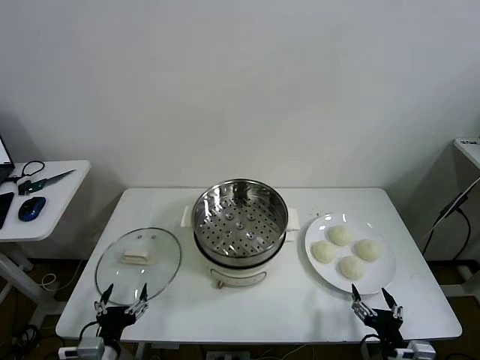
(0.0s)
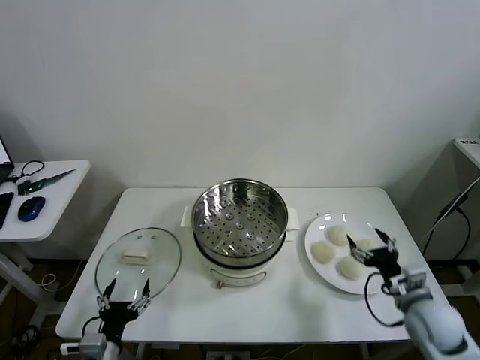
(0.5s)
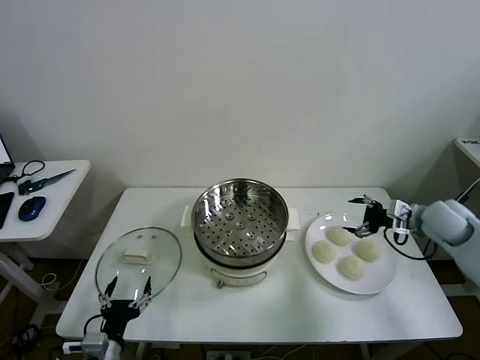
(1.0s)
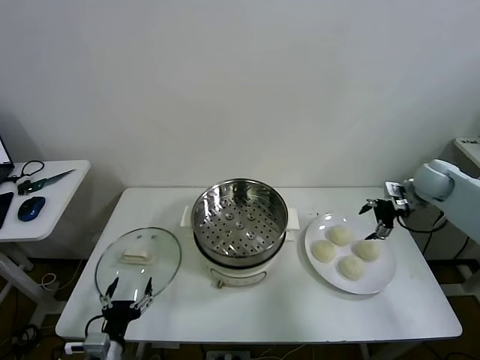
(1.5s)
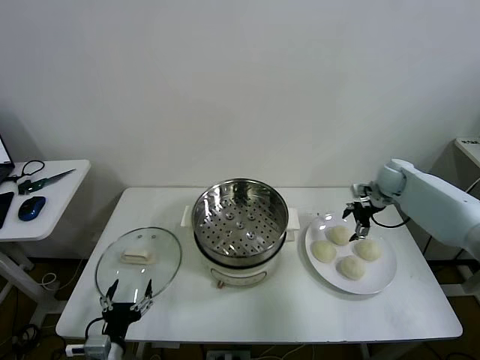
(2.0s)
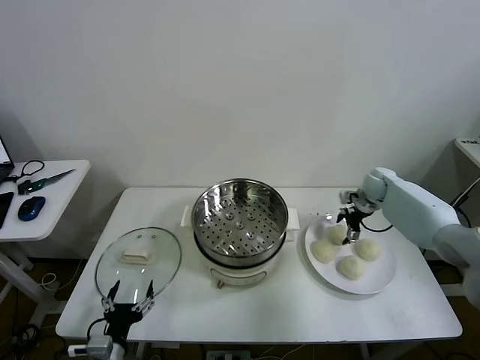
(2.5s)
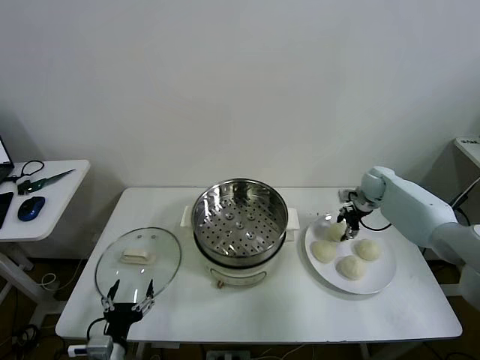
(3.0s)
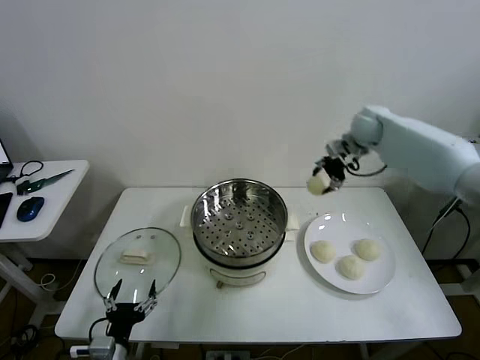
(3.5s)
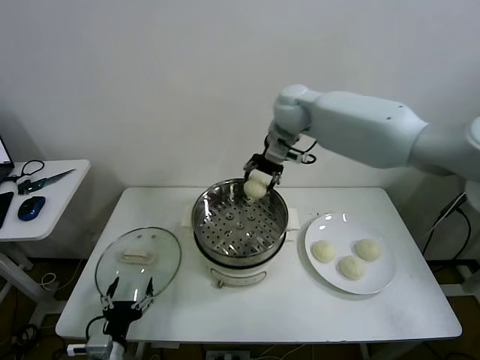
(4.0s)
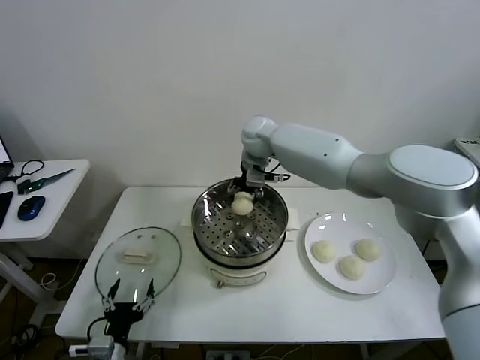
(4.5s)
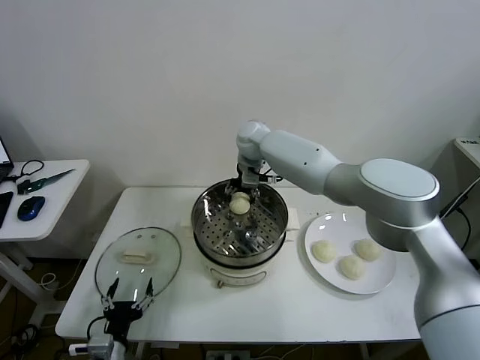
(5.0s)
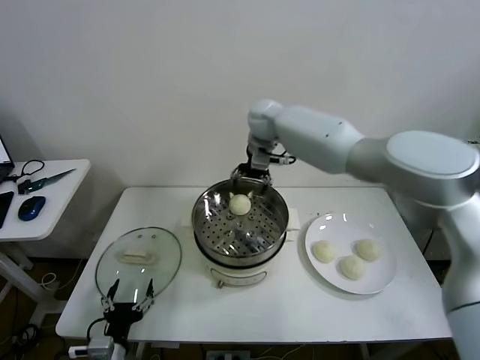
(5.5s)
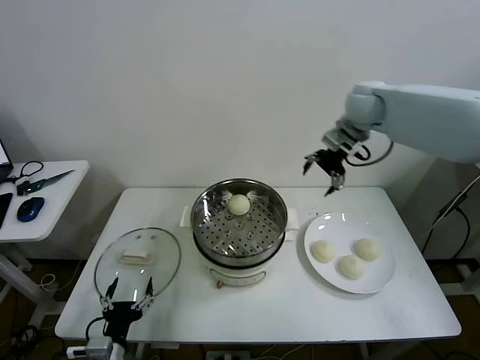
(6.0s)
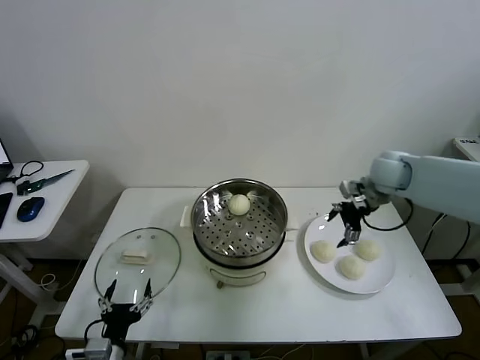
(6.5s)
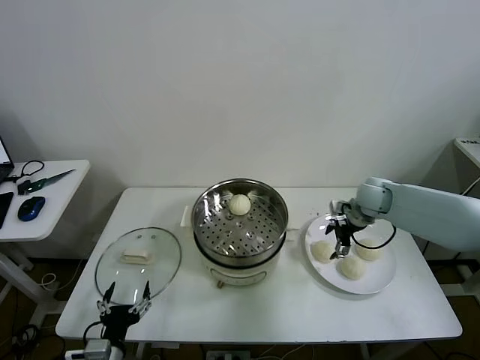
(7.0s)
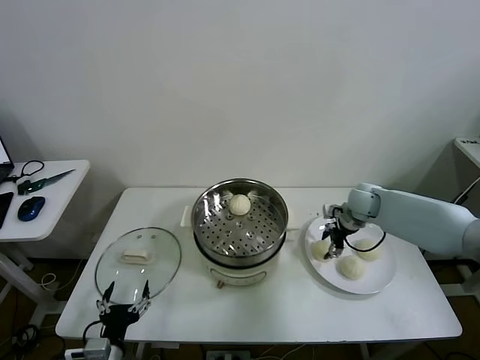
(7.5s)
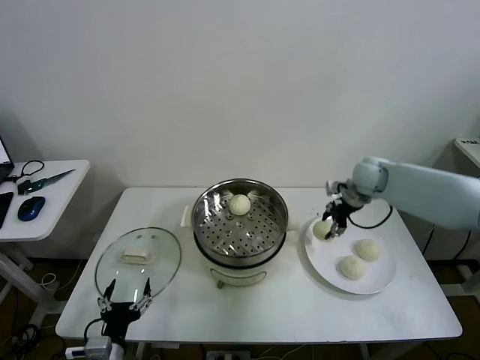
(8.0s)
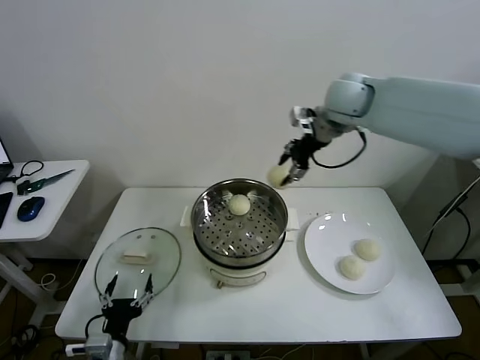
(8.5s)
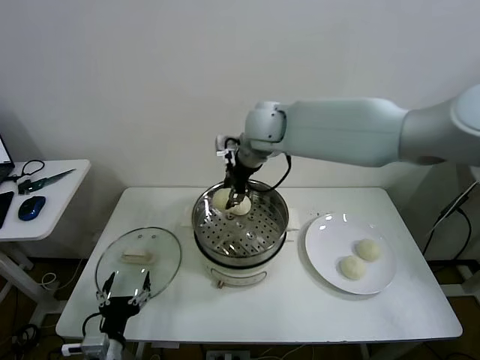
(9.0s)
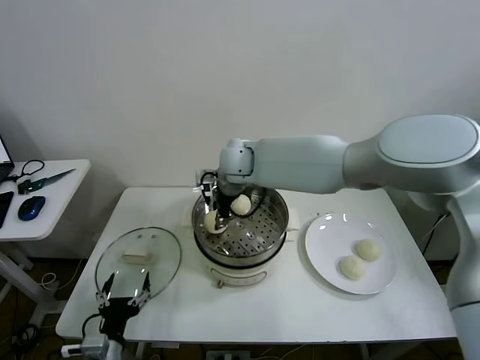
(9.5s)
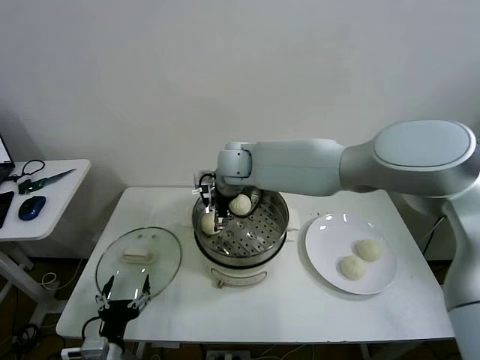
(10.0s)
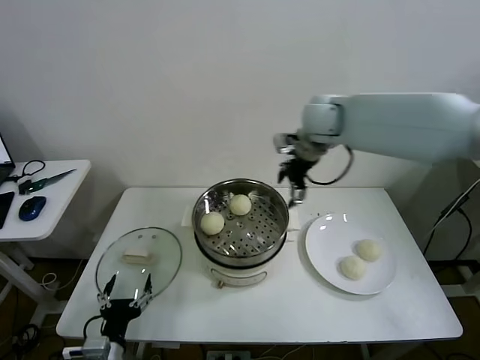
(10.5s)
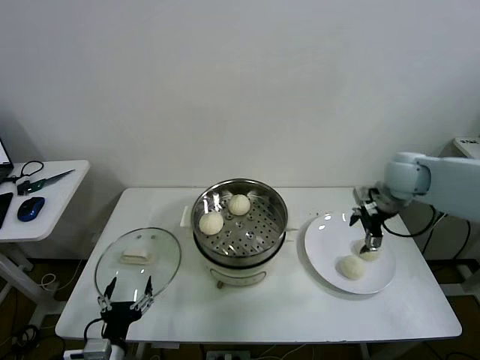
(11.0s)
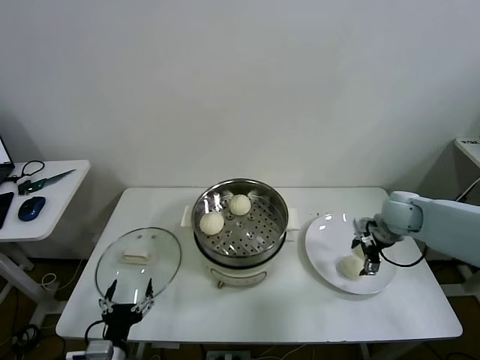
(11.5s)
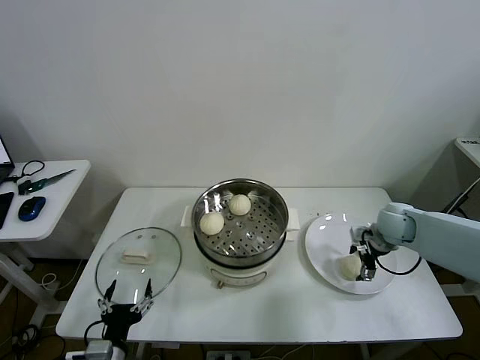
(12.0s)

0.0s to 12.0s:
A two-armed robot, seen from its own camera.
Task of the whole recording: take steamed baozi put them in steamer then cover it.
Step, 0.0s to 2.5s: Grasp the baozi in the plate with right gripper.
Step, 3.0s to 5.0s: Place the baozi on the steamer with right gripper.
Step, 5.5s to 7.5s: Grasp the baozi in the plate with right gripper.
Step, 8.0s to 10.0s: Place the baozi on the steamer with right gripper.
2.0s to 4.0s: The right gripper shifts about 35 cm to the left and upward, and closes.
4.0s to 6.0s: The right gripper moves to the right, approximately 20 cm, and opens.
6.0s to 8.0s: The right gripper moves downward, about 10 cm, and closes.
8.0s to 10.0s: The right gripper is displaced to the left by roughly 30 cm, and opens its fingers.
10.0s to 12.0s: The right gripper is displaced to the right and downward by roughly 40 cm.

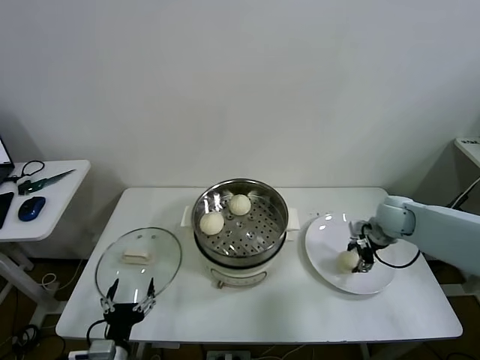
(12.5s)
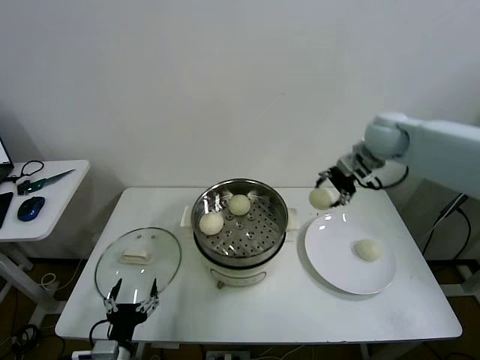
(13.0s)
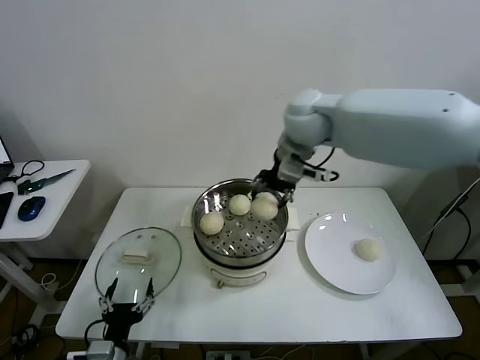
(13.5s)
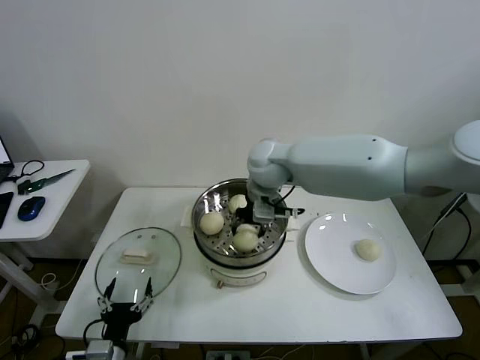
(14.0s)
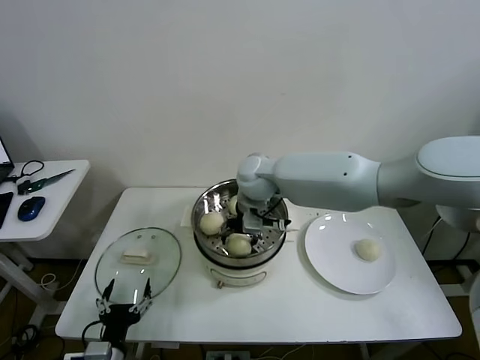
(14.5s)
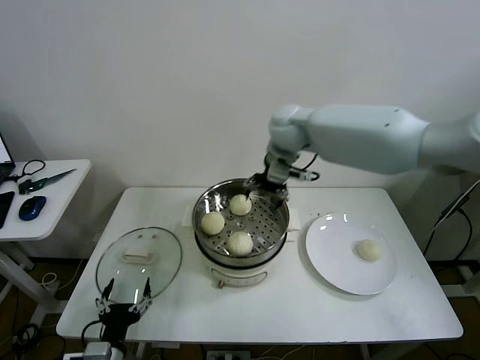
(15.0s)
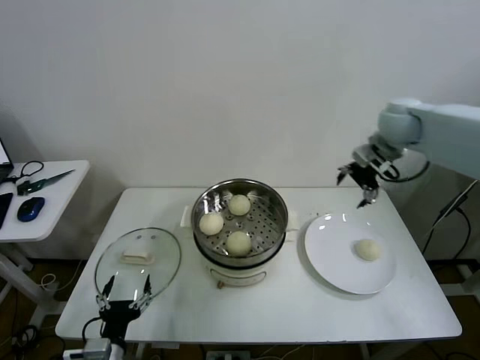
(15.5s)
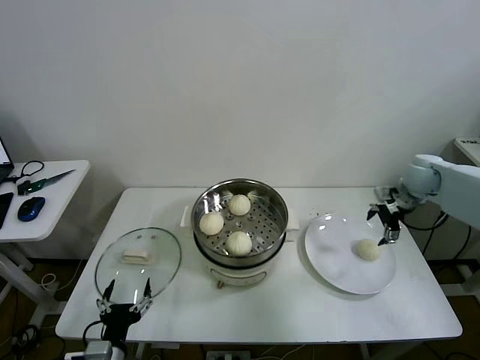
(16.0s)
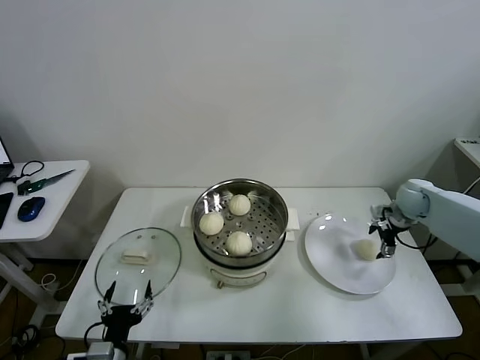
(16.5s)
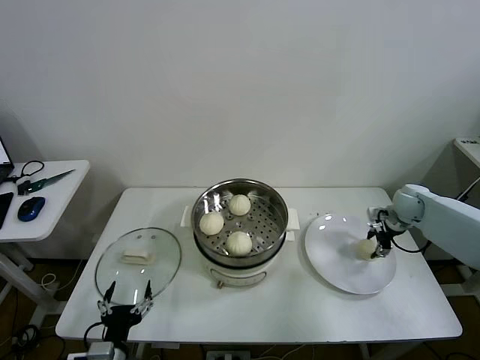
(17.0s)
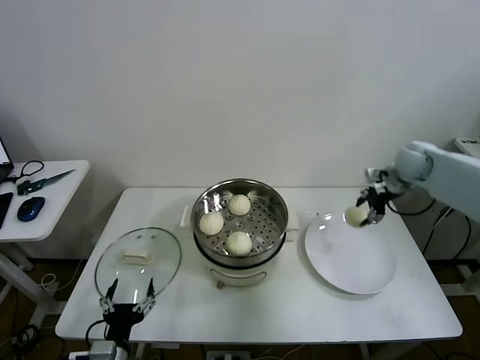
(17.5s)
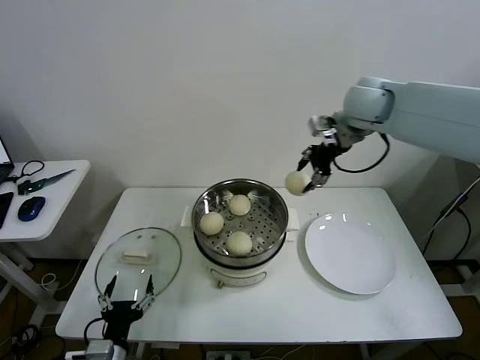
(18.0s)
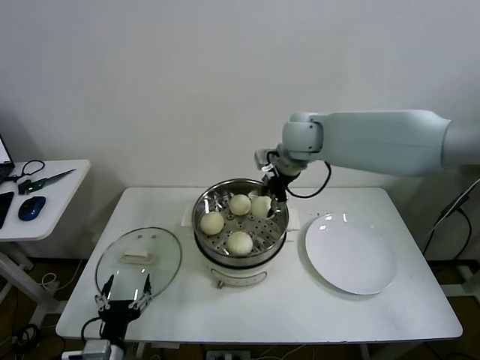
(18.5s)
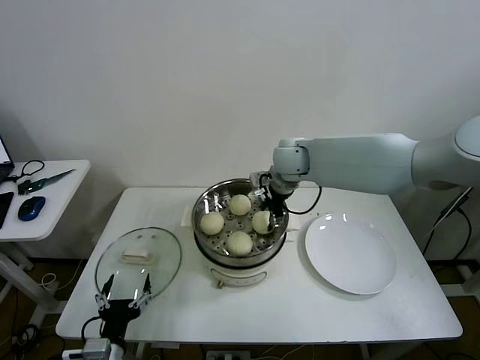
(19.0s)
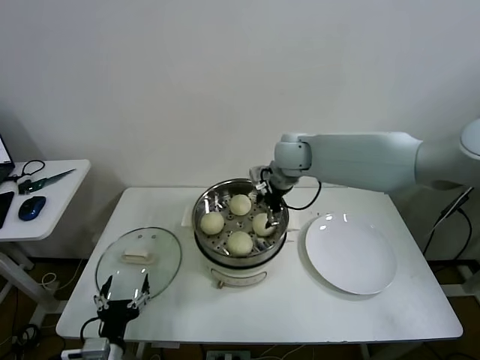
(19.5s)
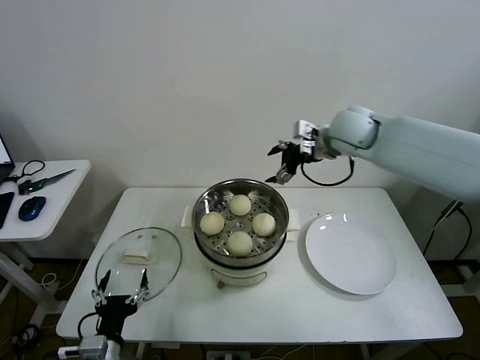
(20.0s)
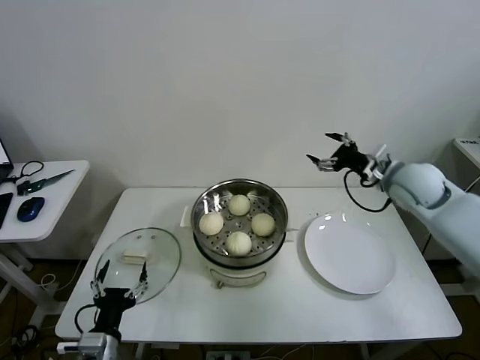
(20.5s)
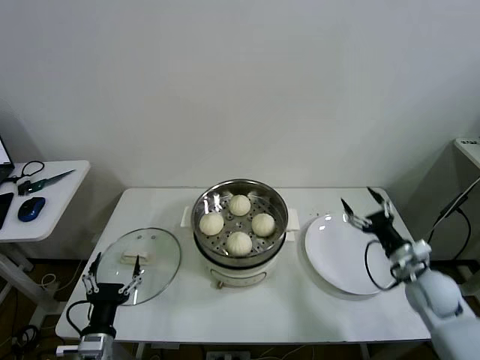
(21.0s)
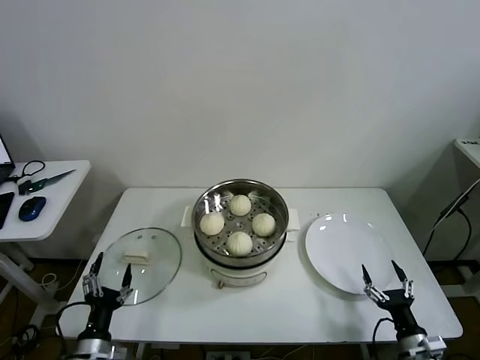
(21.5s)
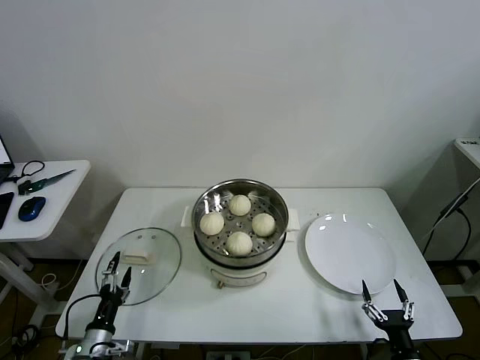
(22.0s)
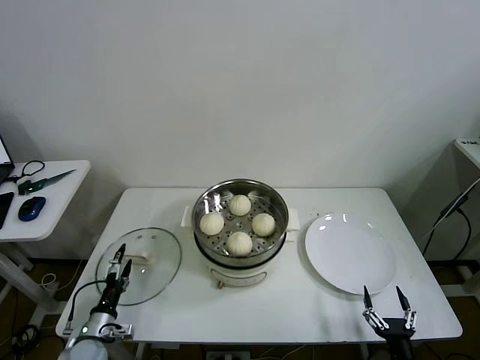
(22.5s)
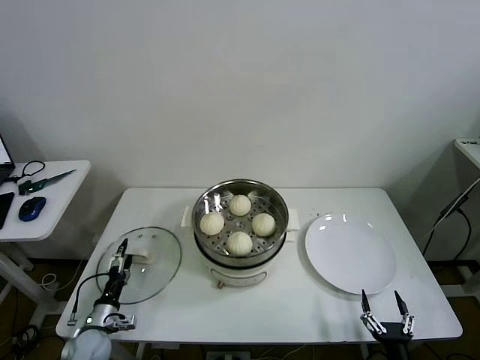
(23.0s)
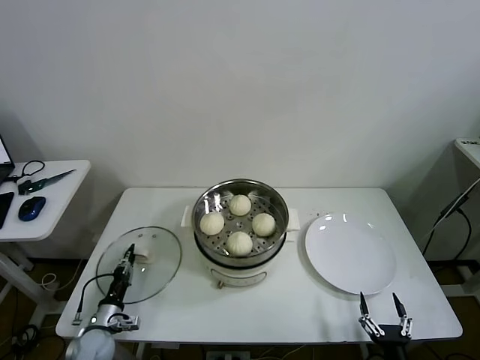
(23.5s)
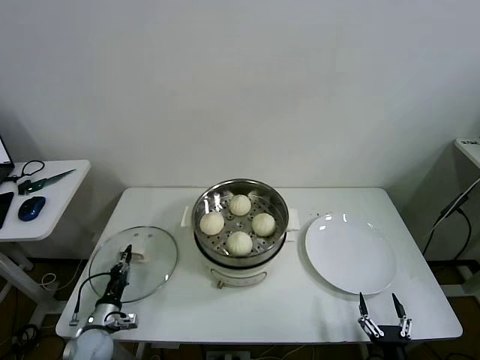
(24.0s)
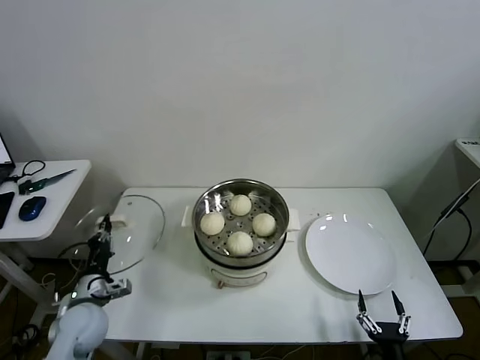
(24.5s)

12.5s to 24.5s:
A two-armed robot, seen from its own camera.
Task of the whole recording: take steamed baozi put them in steamer then cover it.
Step, 12.5s to 14.5s: Place the baozi on the steamer with right gripper.
Step, 15.0s to 16.5s: Grasp the baozi in the plate with right gripper.
Step, 17.0s to 19.0s: Place the baozi on the steamer with right gripper.
Step, 19.5s to 23.5s: Grasp the pot lid with left gripper.
12.5s to 14.5s: The right gripper moves to the left, roughly 35 cm, and opens.
14.5s to 16.5s: The right gripper moves to the right, approximately 40 cm.
16.5s to 18.5s: The right gripper heads to the left and upward, covering some 35 cm, and closes its fingers.
18.5s to 20.5s: The right gripper travels to the right by approximately 25 cm, and opens its fingers.
20.5s to 22.5s: The left gripper goes about 20 cm downward, to the left and forward, while the right gripper travels backward and downward by roughly 50 cm.
22.5s to 24.5s: The left gripper goes about 10 cm upward, and closes its fingers.

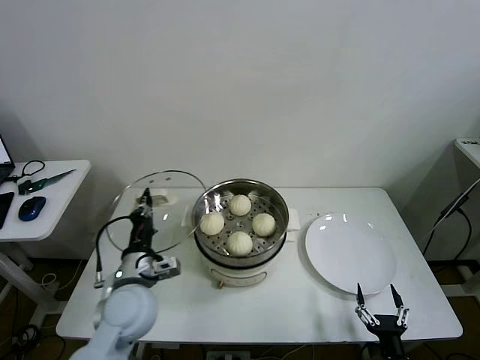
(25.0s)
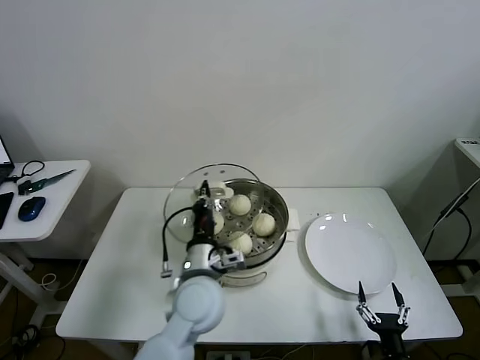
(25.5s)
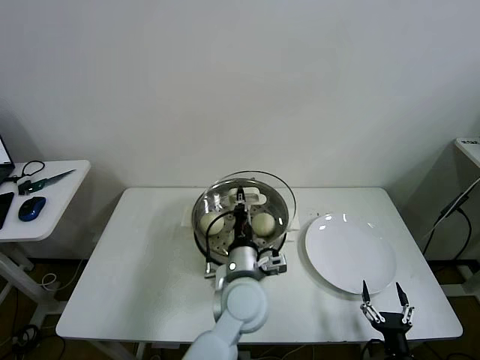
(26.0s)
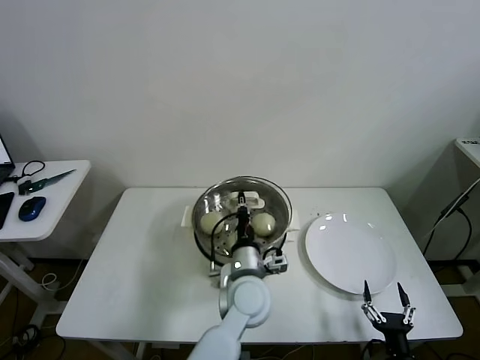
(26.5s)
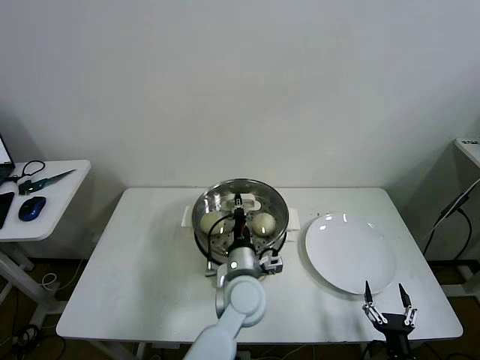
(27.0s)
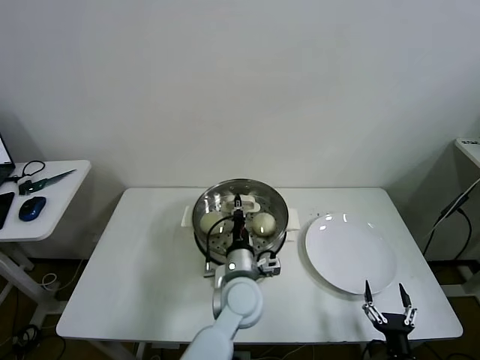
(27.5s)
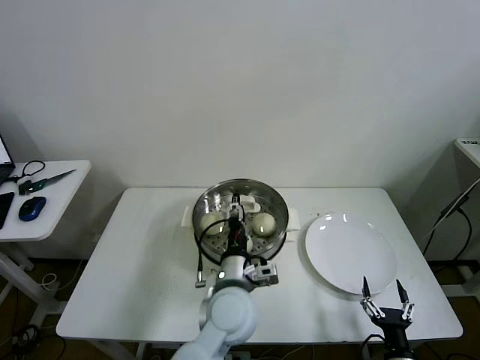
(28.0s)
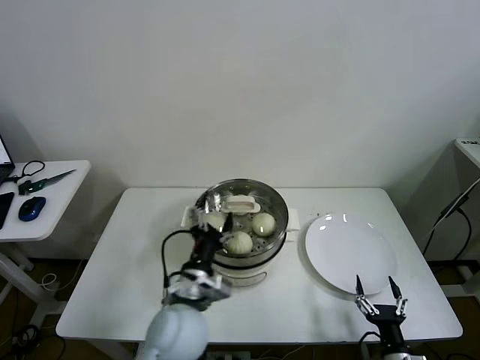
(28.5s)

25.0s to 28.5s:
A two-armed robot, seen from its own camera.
Task of the whole recording: take steamed baozi put them in steamer then cover it.
Step, 25.0s to 28.0s: Place the pot lid on the steamer with left gripper.
25.0s to 27.0s: The left gripper goes about 25 cm to the right.
27.0s to 28.5s: The left gripper moves to the left and backward, approximately 10 cm, and opens its fingers.
